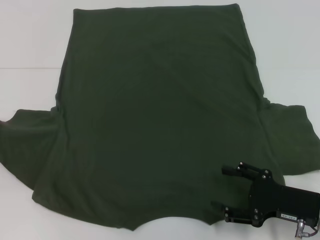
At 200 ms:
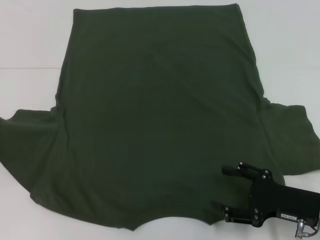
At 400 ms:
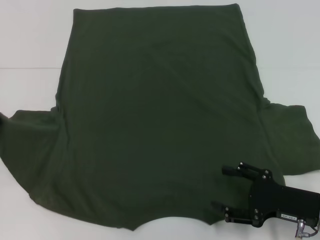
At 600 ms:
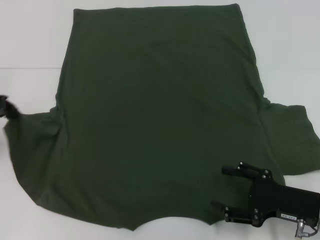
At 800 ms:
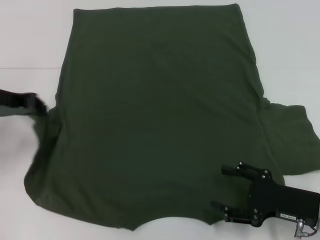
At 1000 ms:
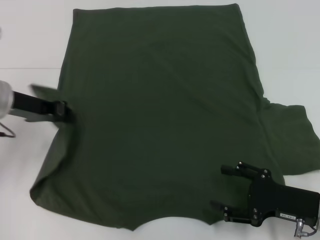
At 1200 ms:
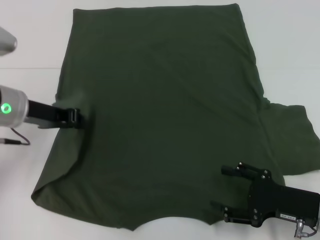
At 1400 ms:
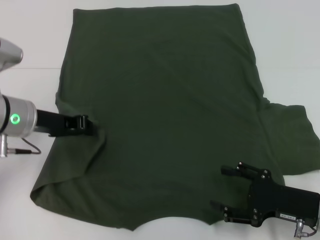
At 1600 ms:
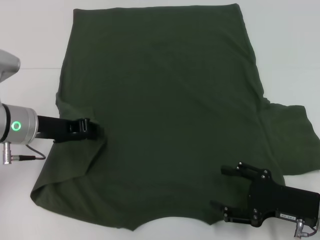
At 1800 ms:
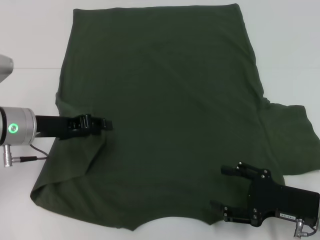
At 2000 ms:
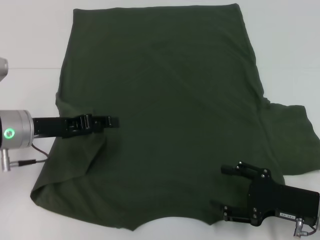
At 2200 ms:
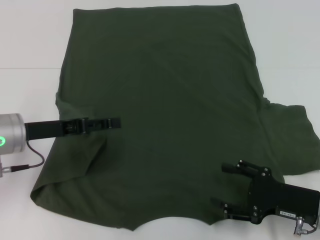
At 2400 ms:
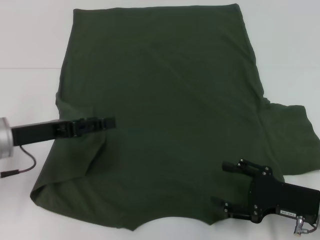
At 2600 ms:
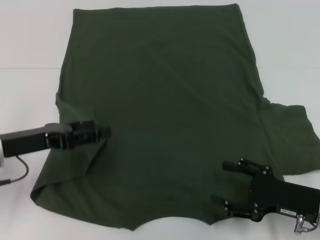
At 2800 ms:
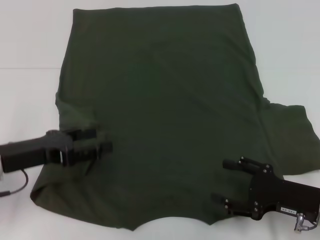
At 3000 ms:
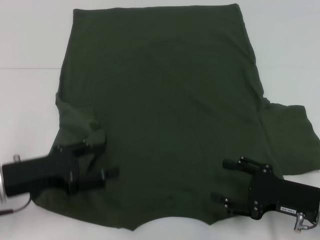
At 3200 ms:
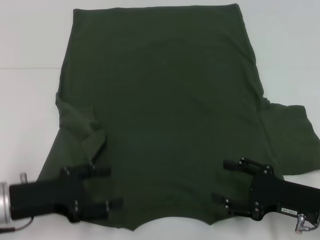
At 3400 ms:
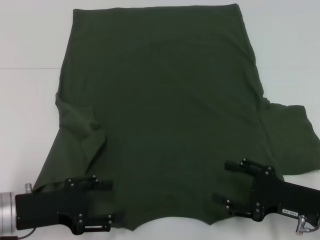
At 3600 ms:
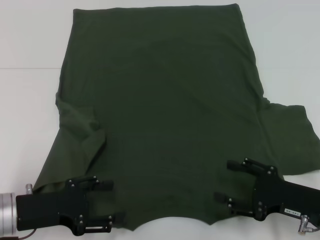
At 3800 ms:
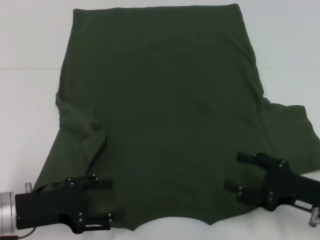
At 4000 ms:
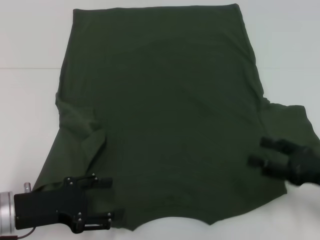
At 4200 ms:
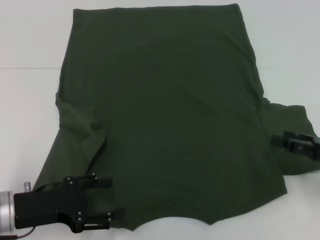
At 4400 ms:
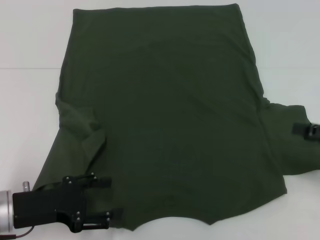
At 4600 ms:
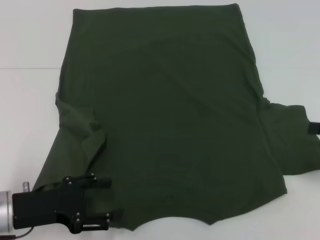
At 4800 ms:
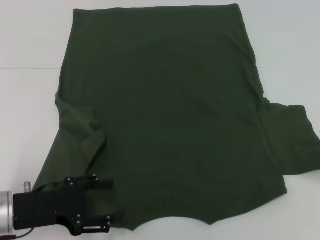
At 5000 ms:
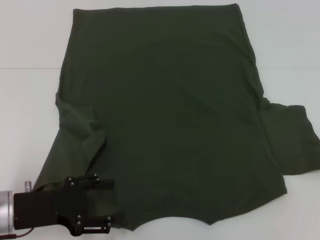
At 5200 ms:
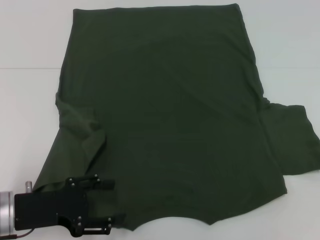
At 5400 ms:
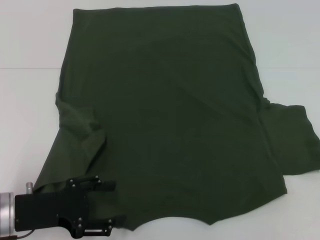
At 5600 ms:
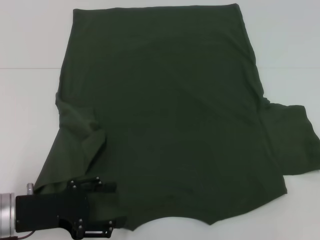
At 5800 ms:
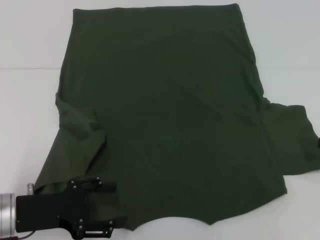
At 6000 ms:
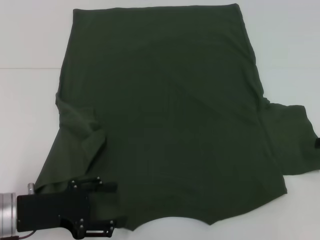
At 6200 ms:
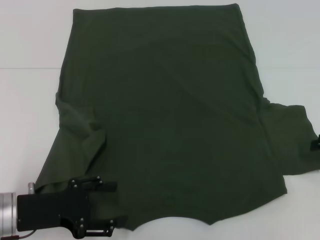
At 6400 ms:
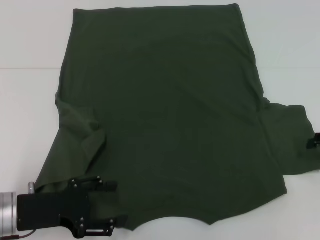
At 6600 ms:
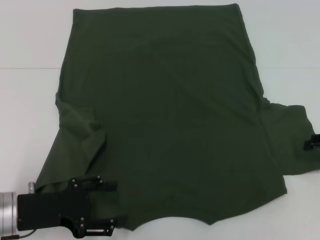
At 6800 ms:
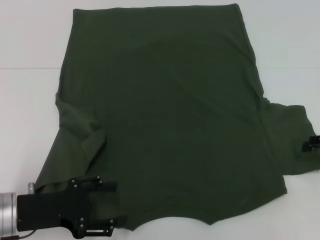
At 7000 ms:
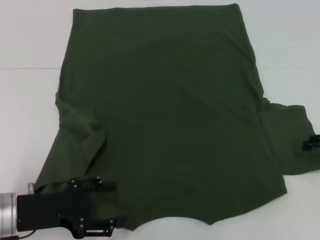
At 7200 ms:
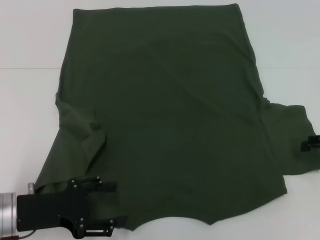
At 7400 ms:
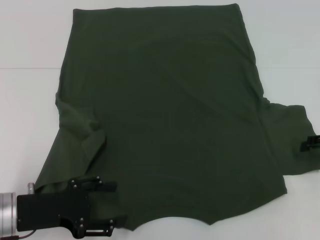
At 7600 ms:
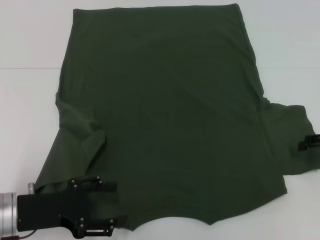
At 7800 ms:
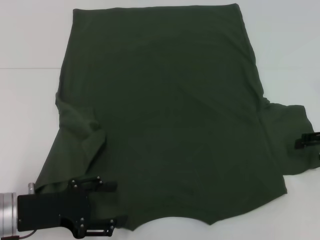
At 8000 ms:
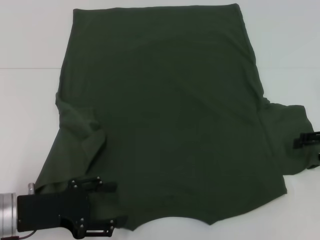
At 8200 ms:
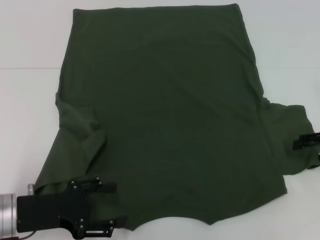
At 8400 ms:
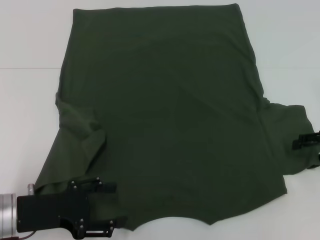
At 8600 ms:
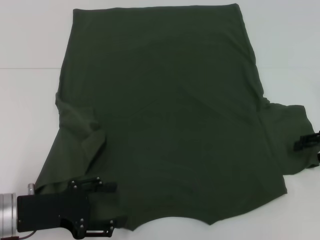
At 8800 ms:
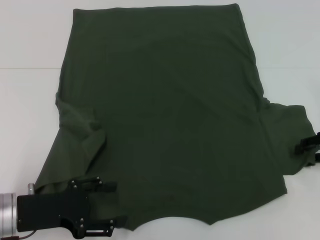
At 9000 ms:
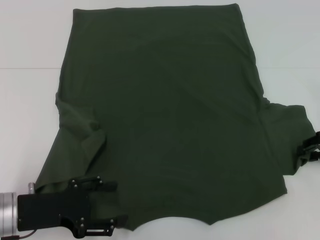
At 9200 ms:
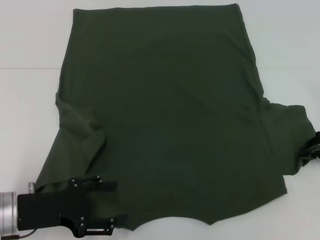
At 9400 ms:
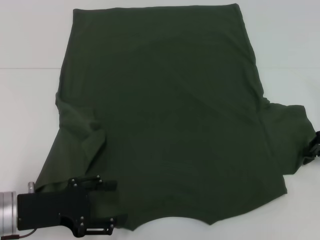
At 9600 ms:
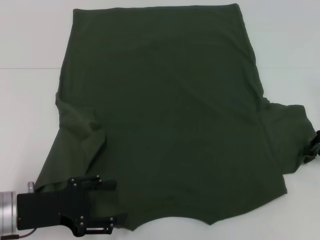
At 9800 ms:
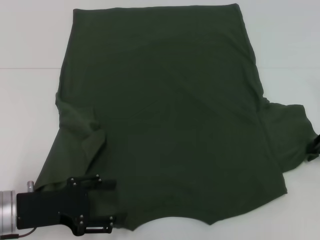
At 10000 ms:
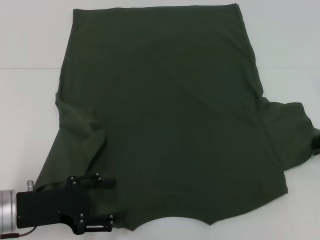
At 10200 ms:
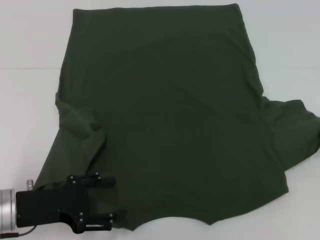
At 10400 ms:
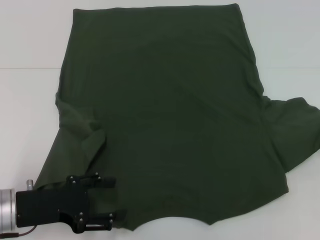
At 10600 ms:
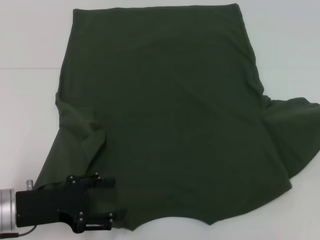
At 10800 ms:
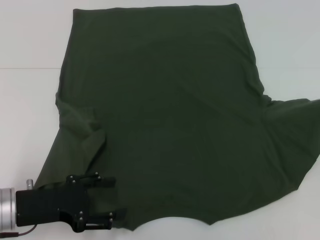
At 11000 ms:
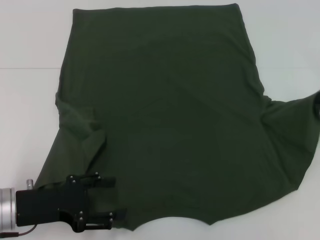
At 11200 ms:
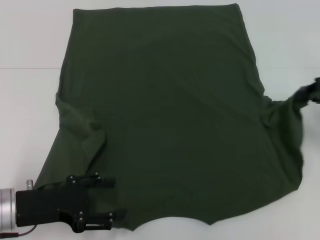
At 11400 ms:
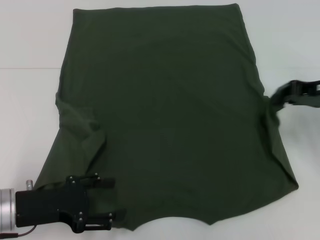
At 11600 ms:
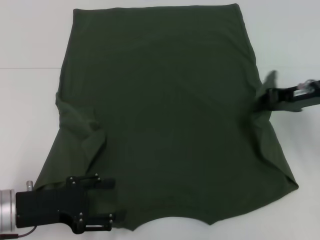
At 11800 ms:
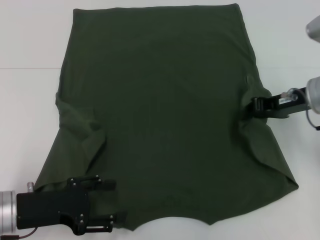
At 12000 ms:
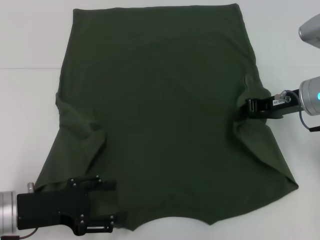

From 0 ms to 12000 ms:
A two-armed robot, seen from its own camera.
From 0 ms to 1600 ms: The left gripper shifts roughly 15 cm to the right.
From 1600 ms to 3000 ms: The left gripper moves backward, some 10 cm, and opens its fingers.
From 3000 ms to 4400 ms: The right gripper travels to the right and upward by about 15 cm.
From 4400 ms to 6000 ms: The right gripper shifts roughly 5 cm forward.
From 9000 ms to 10400 ms: The right gripper closes up.
From 10400 ms to 12000 ms: The right gripper is displaced to the left by approximately 15 cm.

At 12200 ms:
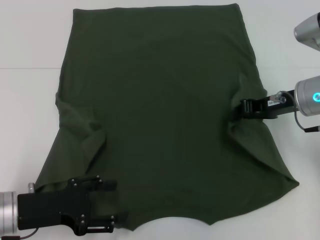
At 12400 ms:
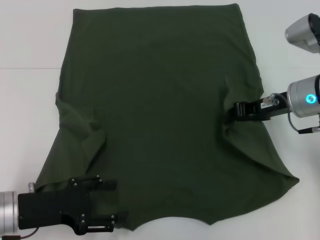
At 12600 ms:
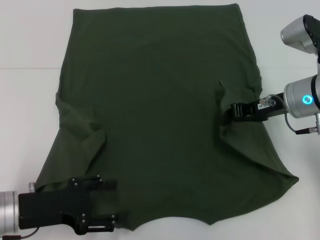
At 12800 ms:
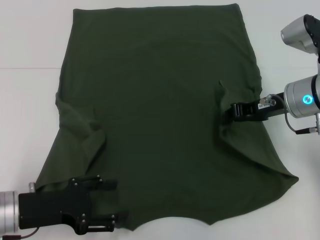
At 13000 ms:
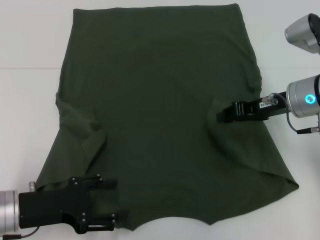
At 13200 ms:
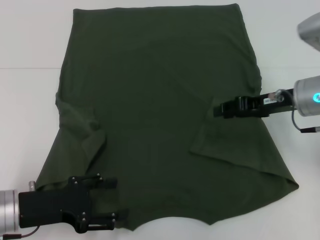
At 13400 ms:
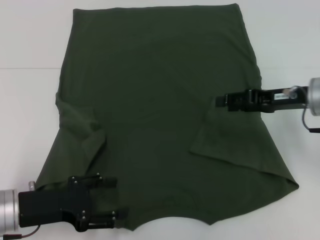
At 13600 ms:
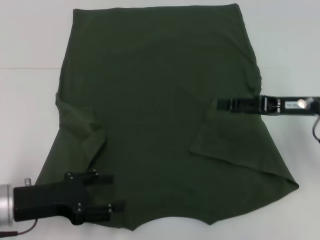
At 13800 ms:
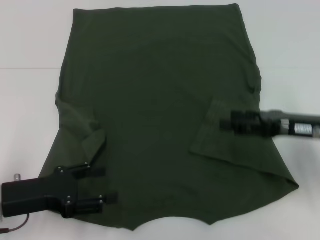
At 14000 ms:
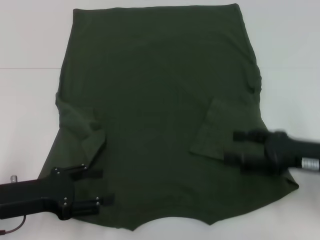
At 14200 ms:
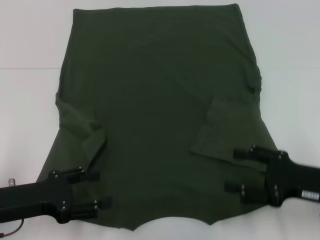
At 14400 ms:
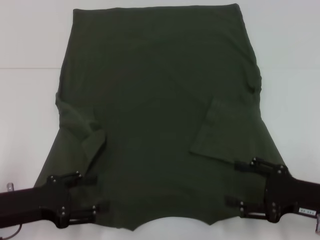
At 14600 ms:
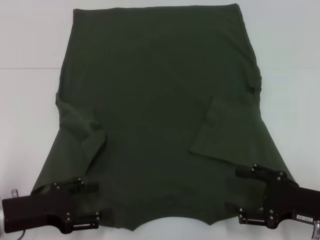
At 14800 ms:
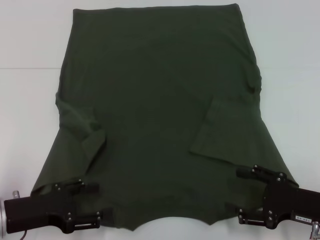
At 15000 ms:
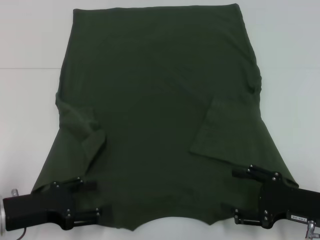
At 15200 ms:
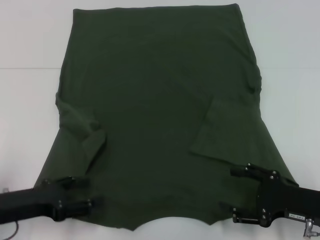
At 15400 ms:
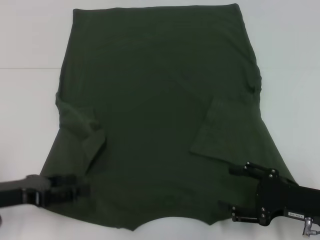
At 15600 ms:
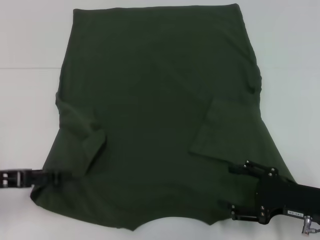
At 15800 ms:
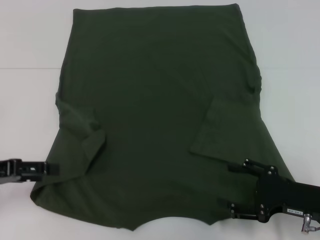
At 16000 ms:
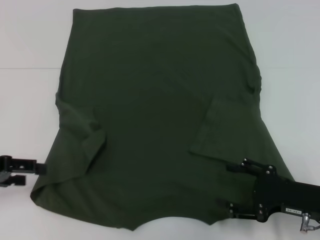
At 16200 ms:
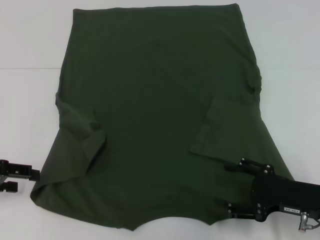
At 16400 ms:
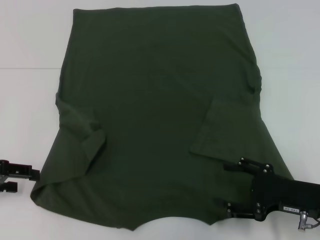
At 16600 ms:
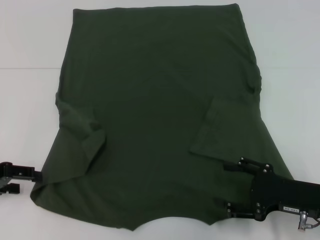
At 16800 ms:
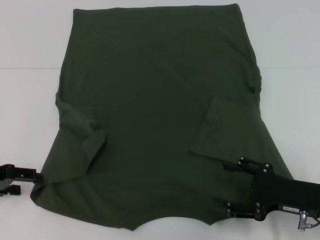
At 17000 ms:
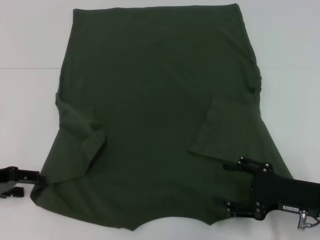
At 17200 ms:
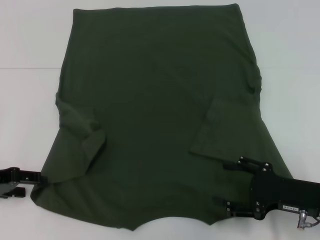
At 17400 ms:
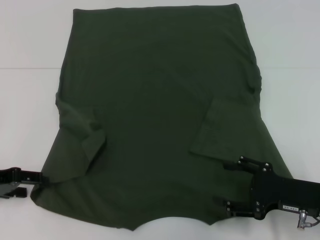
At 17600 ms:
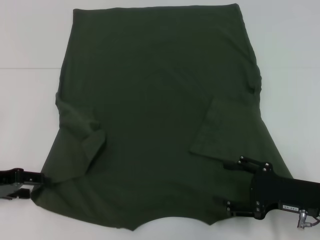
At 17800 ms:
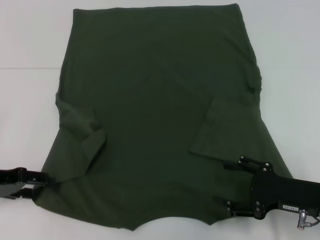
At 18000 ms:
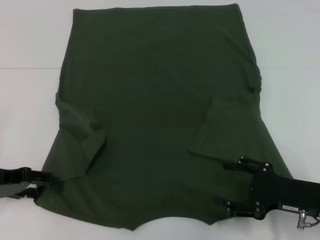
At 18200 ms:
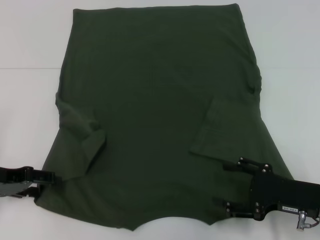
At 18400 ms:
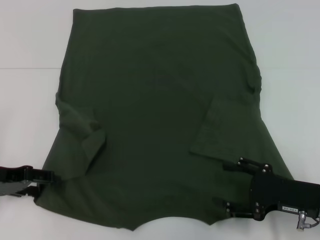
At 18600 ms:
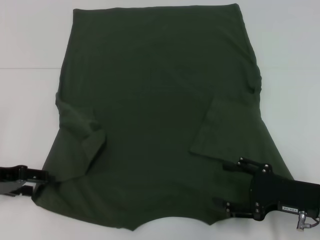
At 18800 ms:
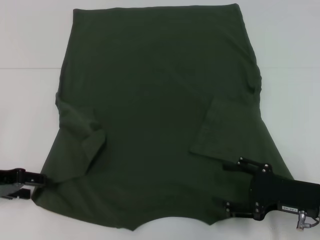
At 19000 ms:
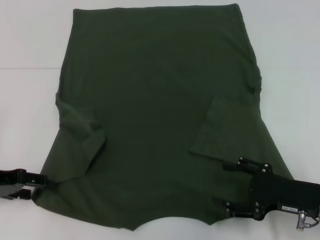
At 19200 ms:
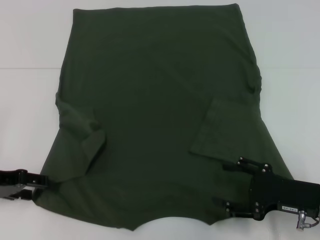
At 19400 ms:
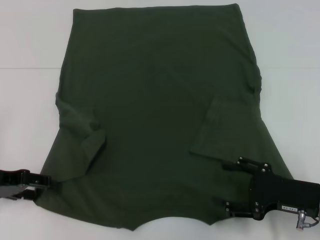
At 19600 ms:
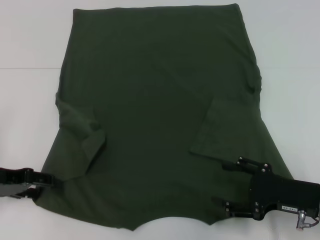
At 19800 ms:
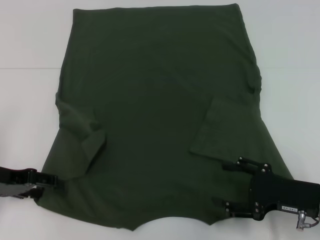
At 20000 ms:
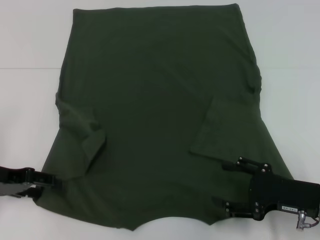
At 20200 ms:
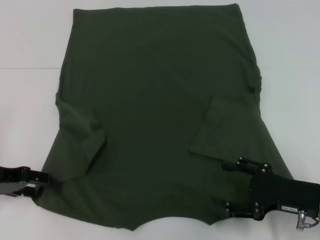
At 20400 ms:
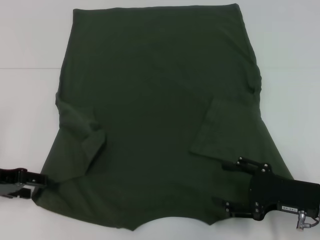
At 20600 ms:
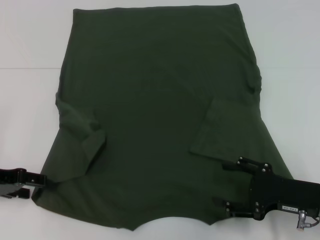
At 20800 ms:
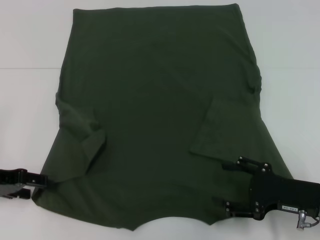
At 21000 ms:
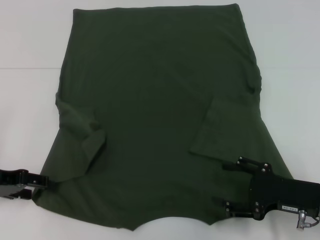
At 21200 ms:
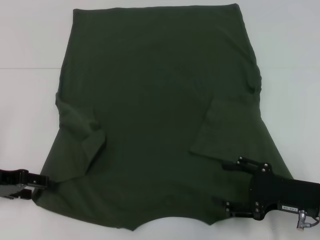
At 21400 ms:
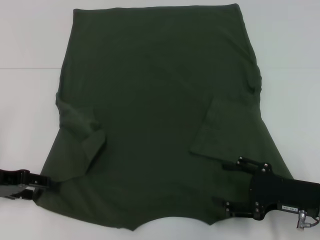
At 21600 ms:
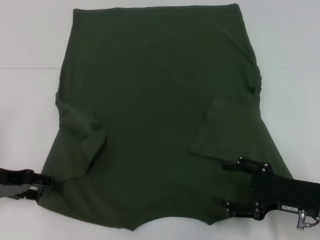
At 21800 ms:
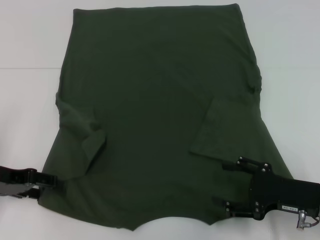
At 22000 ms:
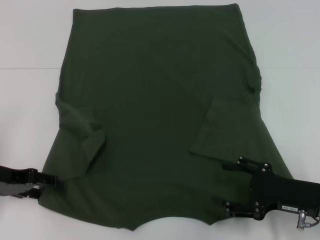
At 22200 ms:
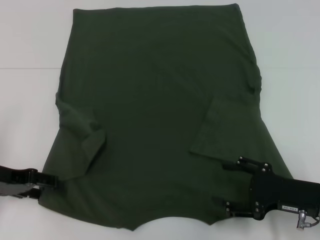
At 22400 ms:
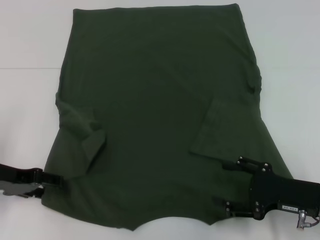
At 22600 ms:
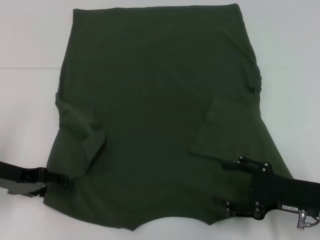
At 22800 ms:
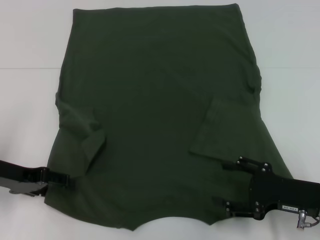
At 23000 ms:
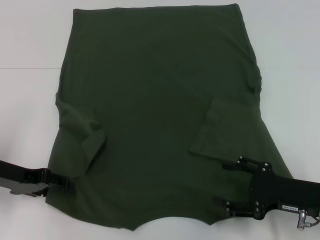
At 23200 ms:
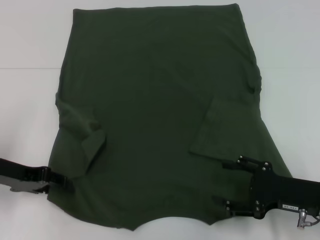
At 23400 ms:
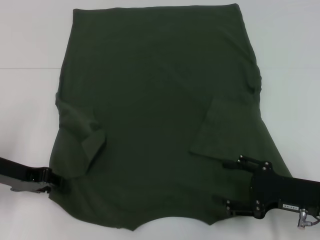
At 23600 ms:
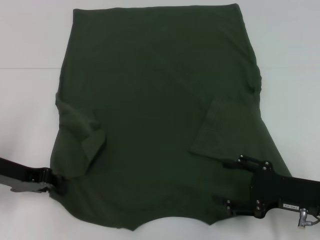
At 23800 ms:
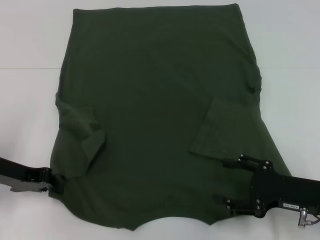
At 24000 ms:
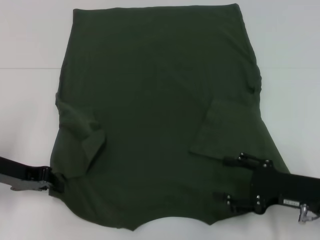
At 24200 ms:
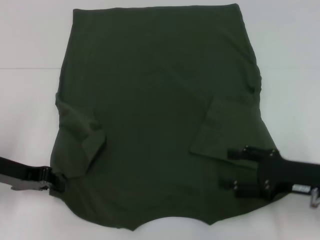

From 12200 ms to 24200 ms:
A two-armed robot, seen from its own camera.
Step, from 13200 ms to 23600 ms: Grab the bottom left corner with your left hand.
From 12200 ms to 13800 ms: The right gripper heads backward, covering about 5 cm, and opens.
From 13800 ms to 15200 ms: The right gripper moves backward and downward, roughly 10 cm.
From 15200 ms to 16600 ms: The left gripper shifts some 10 cm to the left, upward and forward.
From 16600 ms to 18200 ms: There are only small adjustments of the grippers.
From 18200 ms to 19800 ms: The two grippers keep their place.
From 19800 ms to 21200 ms: Neither gripper changes place.
From 21200 ms to 22600 ms: The grippers stay close to where they were, moving slightly.
From 22600 ms to 24200 ms: The left gripper closes up.
